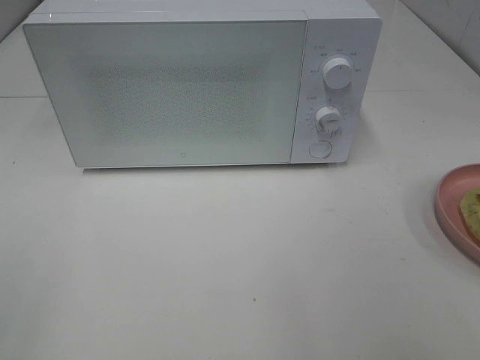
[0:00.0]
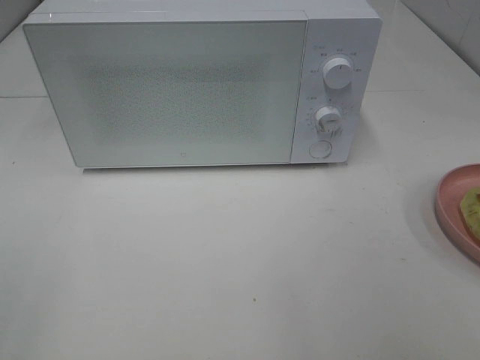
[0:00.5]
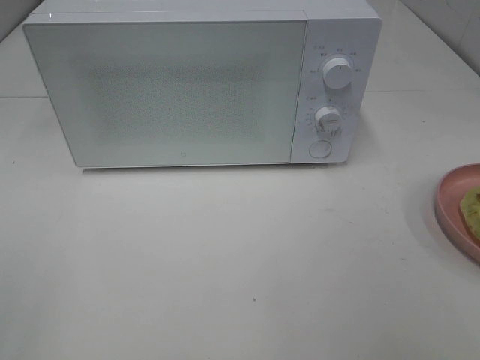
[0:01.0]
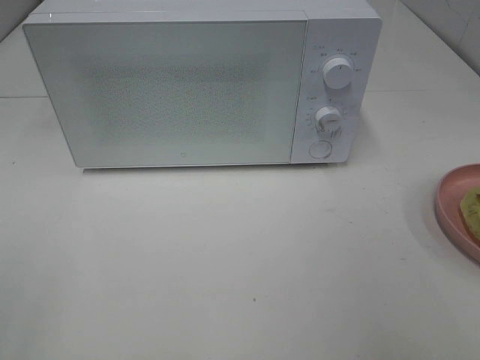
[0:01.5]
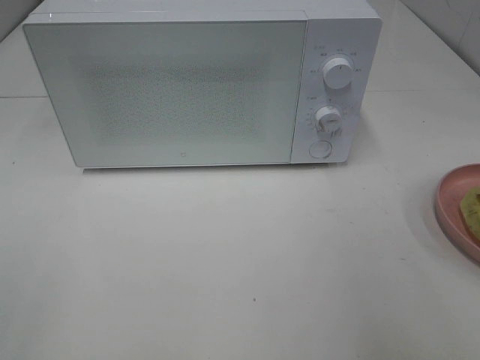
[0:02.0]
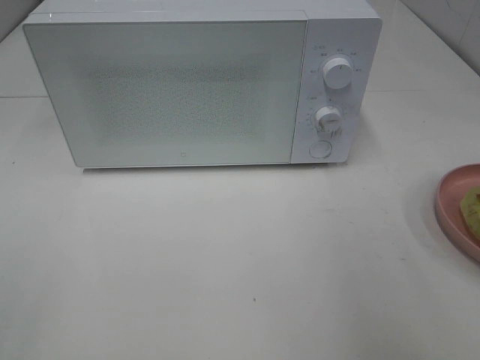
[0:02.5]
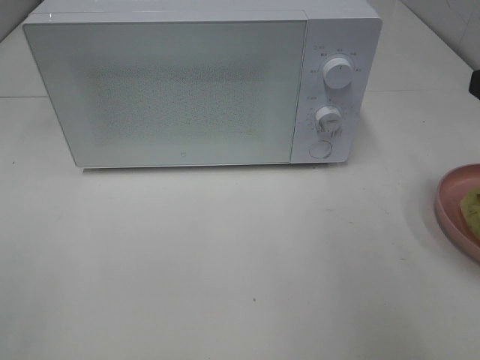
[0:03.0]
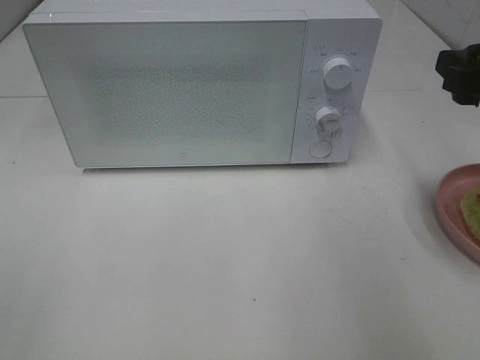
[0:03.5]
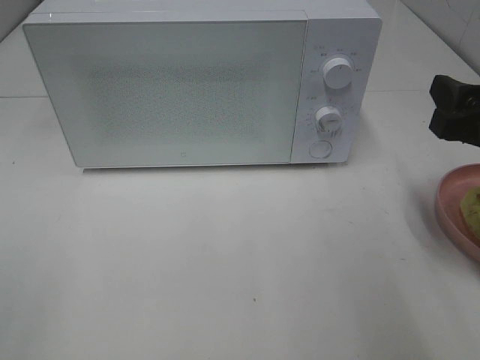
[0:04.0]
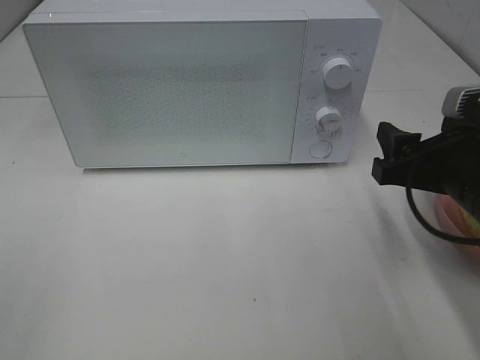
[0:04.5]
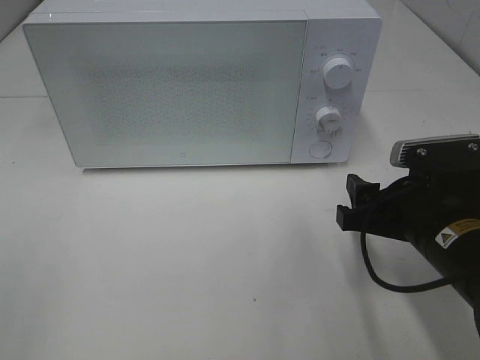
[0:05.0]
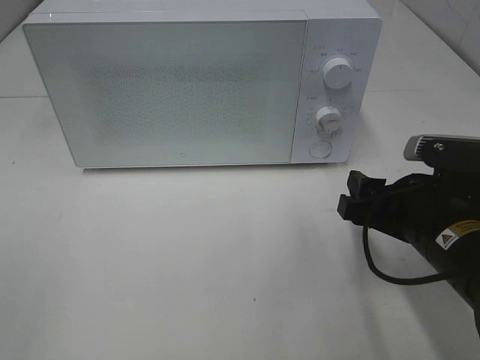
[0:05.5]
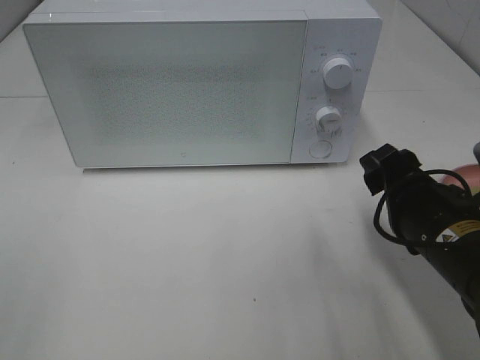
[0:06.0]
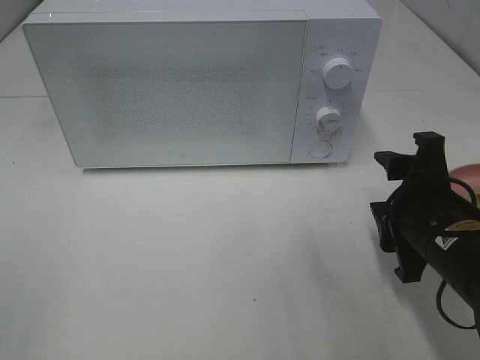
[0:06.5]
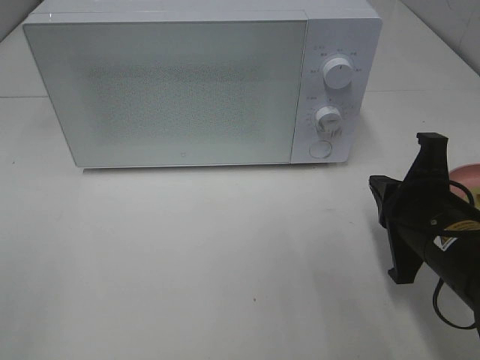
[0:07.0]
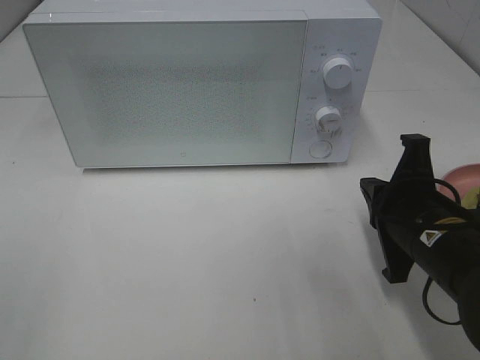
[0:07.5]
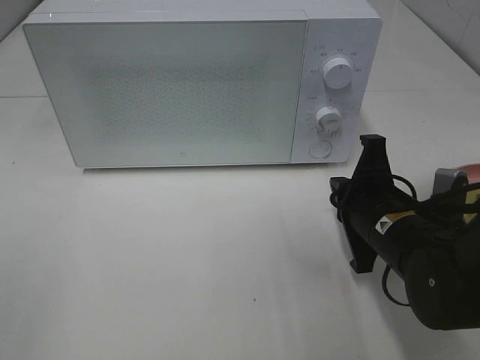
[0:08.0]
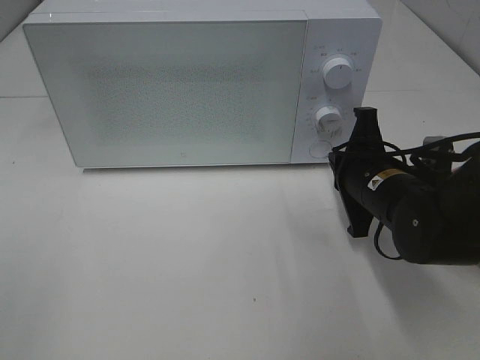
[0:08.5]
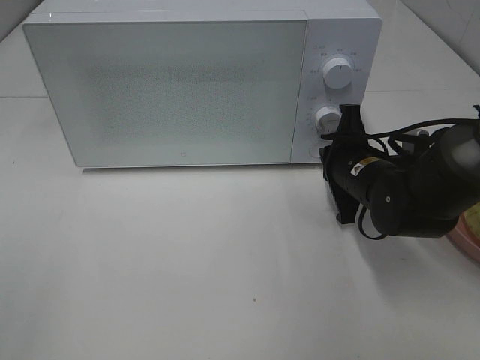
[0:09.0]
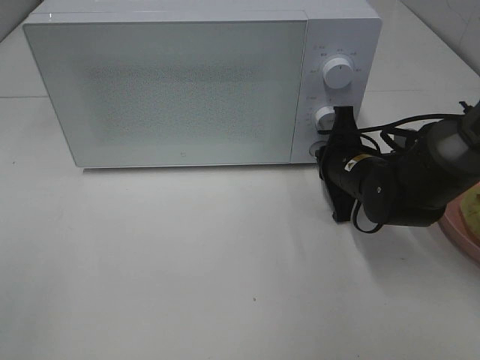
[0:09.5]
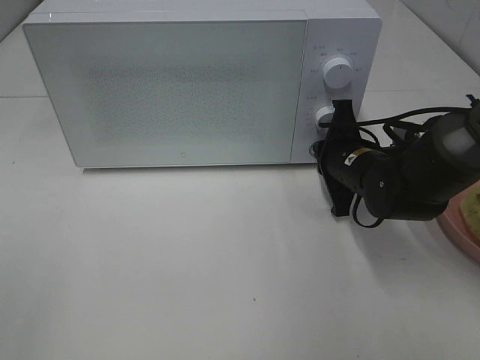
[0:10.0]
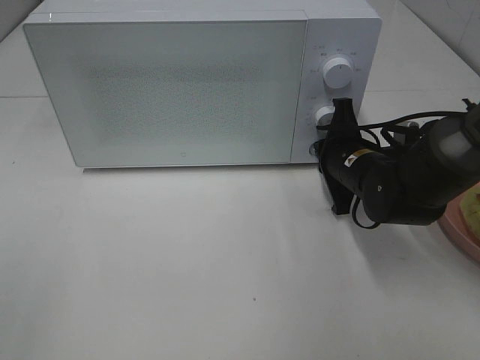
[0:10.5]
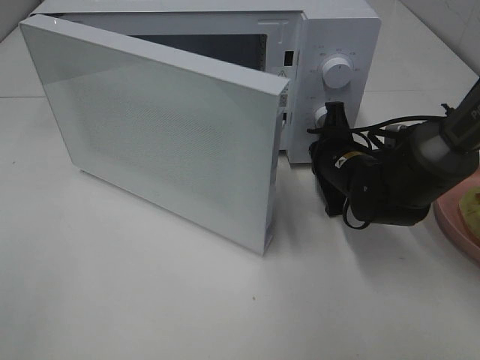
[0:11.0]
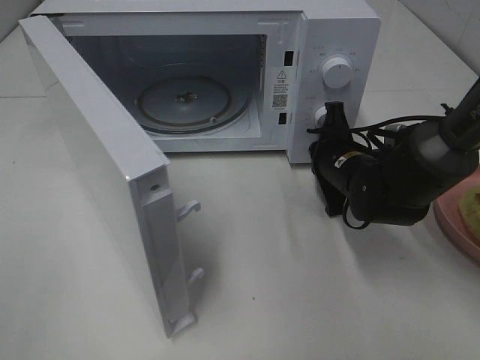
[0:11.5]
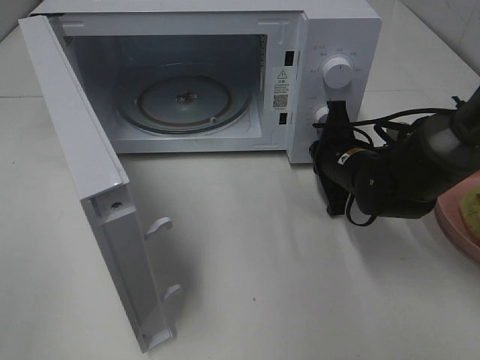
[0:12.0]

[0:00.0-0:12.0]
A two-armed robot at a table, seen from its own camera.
Task of the whole recording: Heat Sandwich.
0:02.0 to 0:04.0: The right gripper travels forward and downward by roughly 15 cm.
0:04.0 to 0:06.0: The right gripper moves downward and to the left, some 10 cm.
0:06.0 to 0:08.0: The right gripper shifts by roughly 5 cm, and closes up.
0:08.0 to 0:10.0: The right gripper heads forward, covering approximately 10 cm.

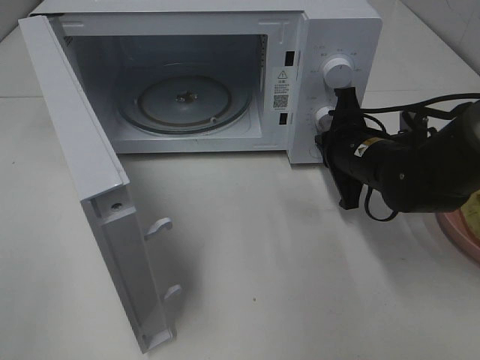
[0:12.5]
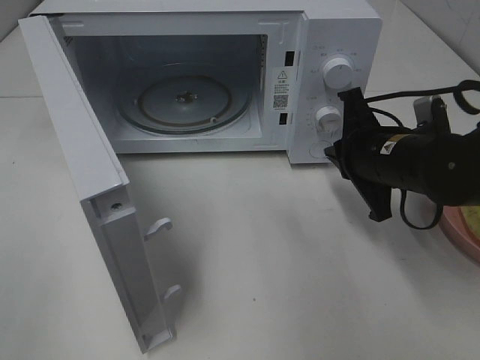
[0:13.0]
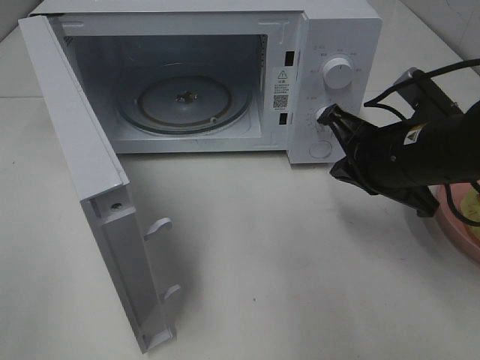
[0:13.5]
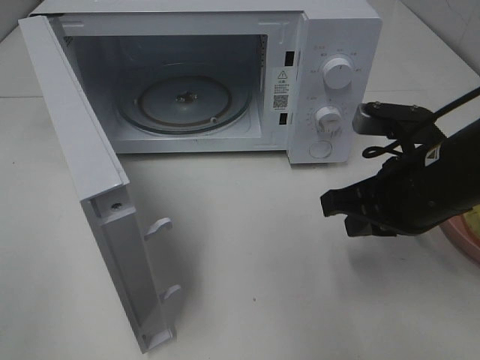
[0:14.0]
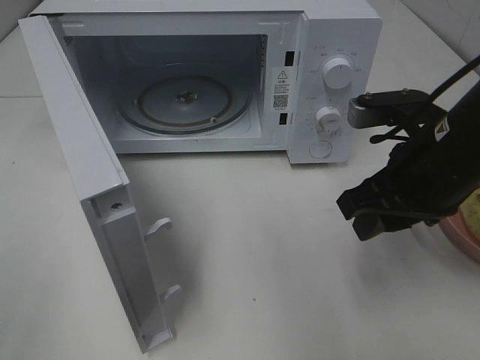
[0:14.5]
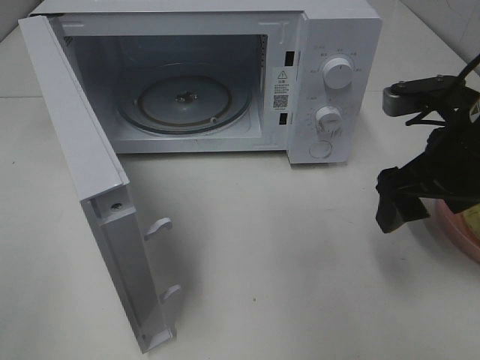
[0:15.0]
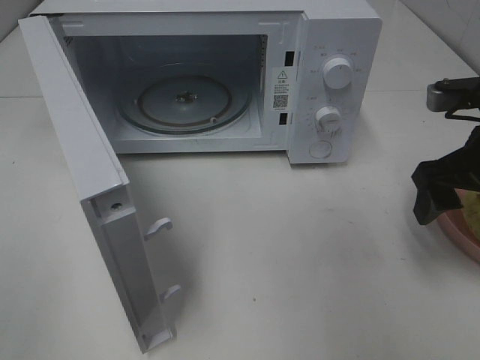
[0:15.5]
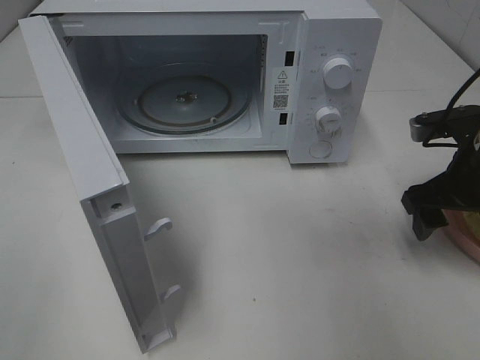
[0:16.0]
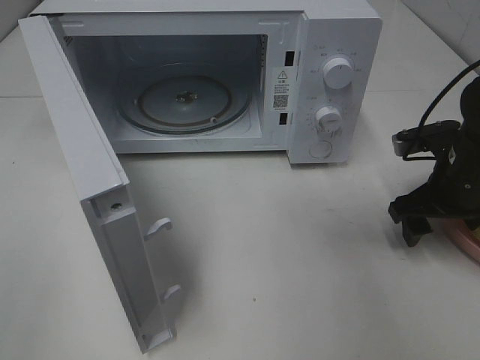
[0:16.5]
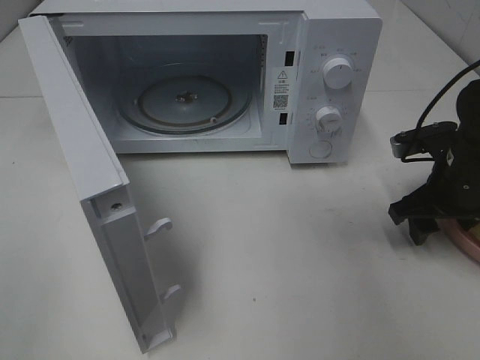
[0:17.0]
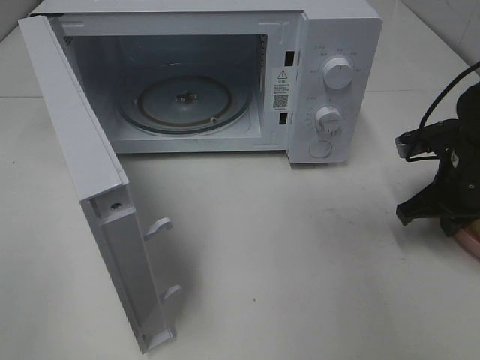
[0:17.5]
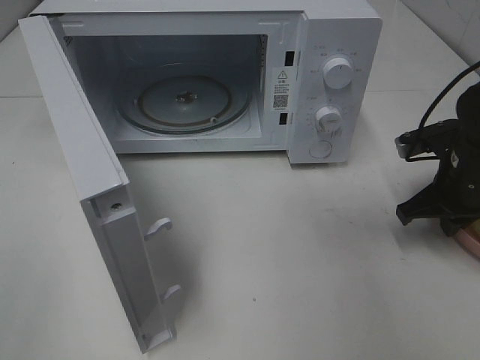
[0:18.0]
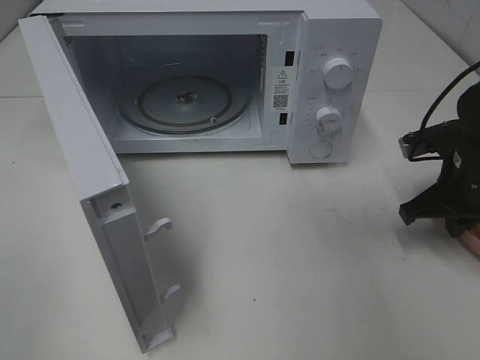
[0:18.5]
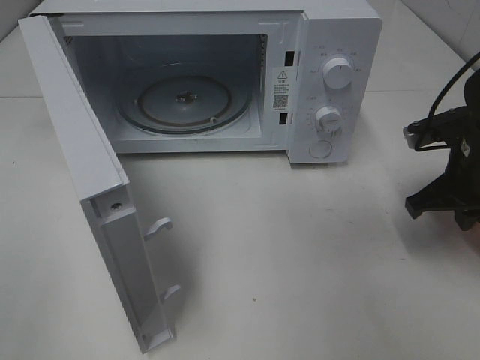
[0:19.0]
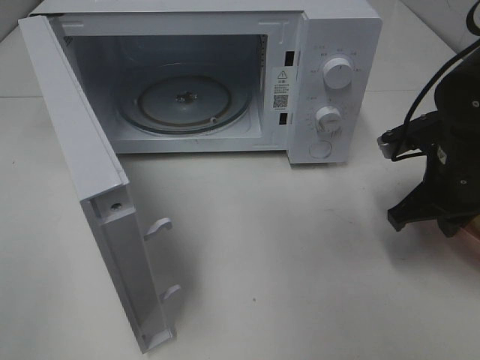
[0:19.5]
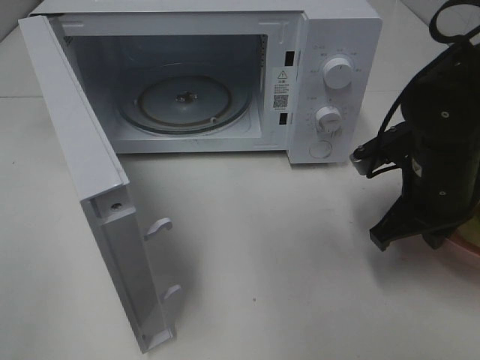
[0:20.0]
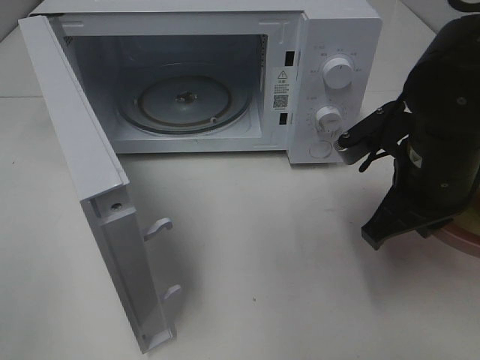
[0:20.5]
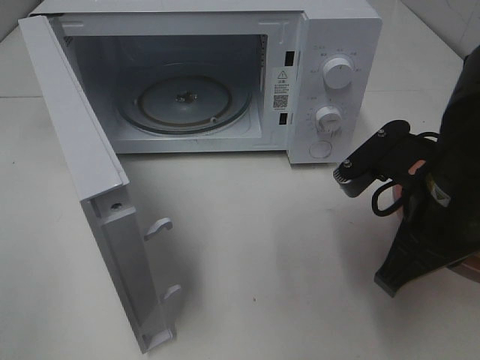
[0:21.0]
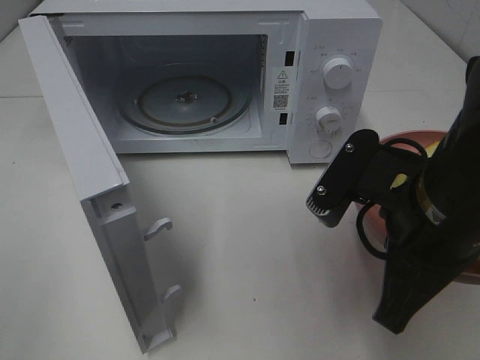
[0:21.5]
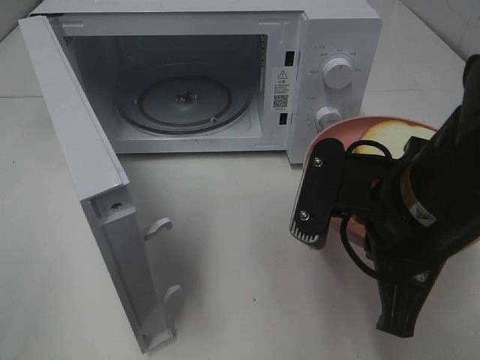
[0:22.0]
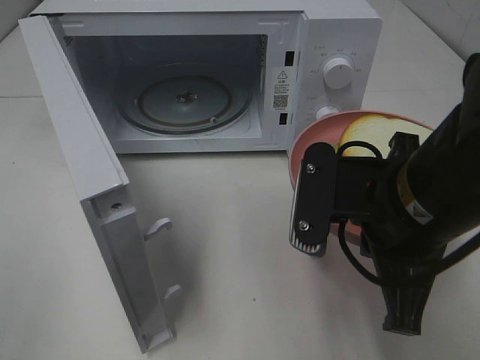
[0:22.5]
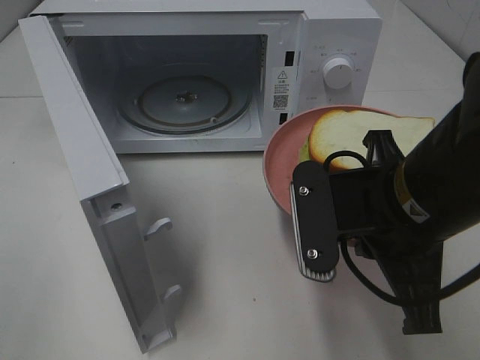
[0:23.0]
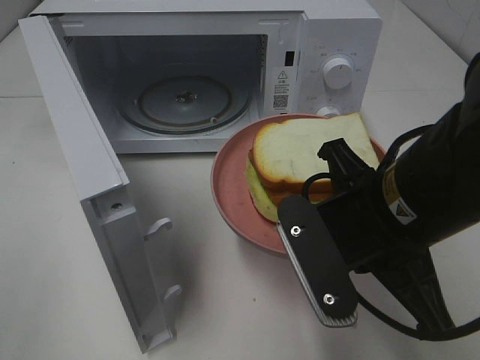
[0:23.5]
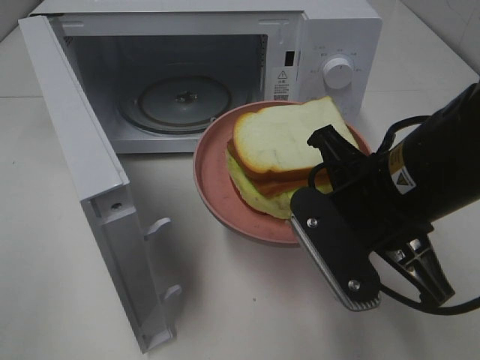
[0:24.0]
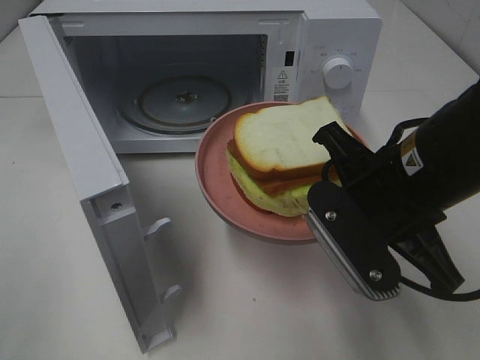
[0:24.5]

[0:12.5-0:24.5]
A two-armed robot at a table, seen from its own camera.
Task of the whole recording: Heat Sandwich.
Step, 0:13.0 to 0:17.5: Right hand: grab the plate with the sandwich.
0:12.5 to 0:14.5: The right gripper moves backward and upward, roughly 15 cm, and opens up.
0:14.5 to 0:16.5: The right gripper goes some 15 cm to the right, downward and forward, and opens.
0:16.5 to 0:18.5: The right gripper closes up.
0:18.5 to 0:20.5: The right gripper travels to the left, backward and upward by roughly 15 cm.
0:20.5 to 0:22.5: The right gripper goes approximately 5 cm backward.

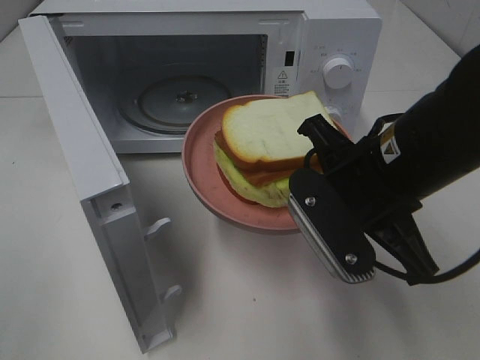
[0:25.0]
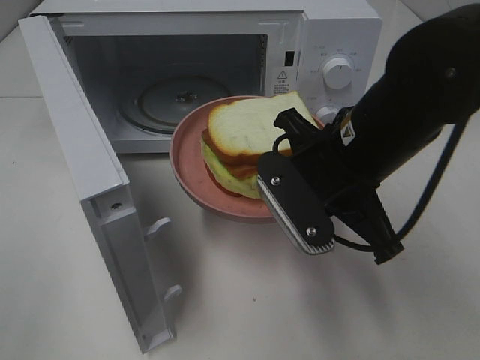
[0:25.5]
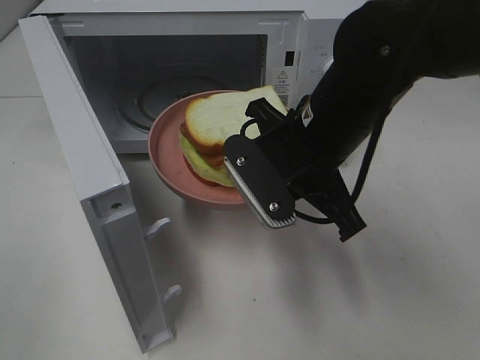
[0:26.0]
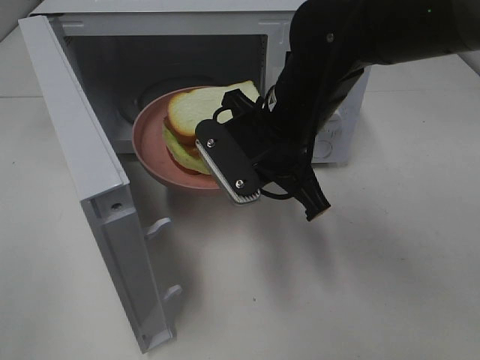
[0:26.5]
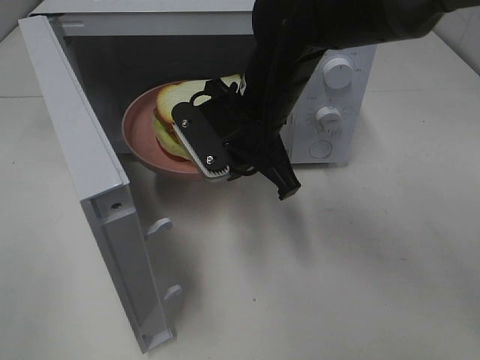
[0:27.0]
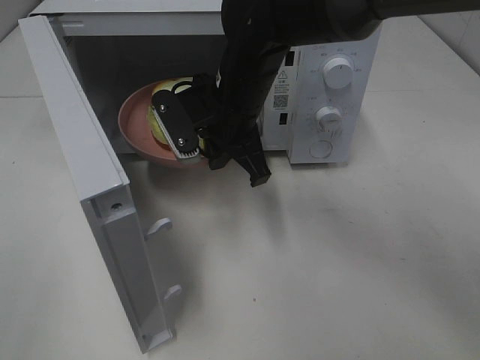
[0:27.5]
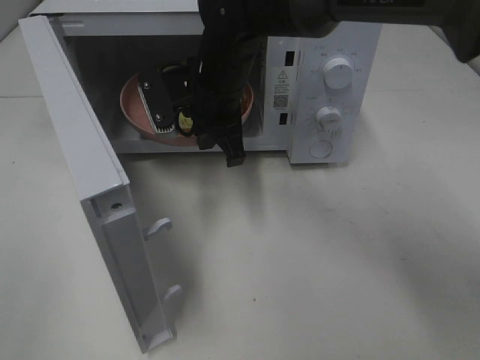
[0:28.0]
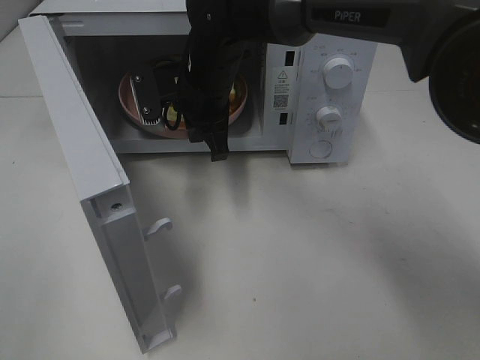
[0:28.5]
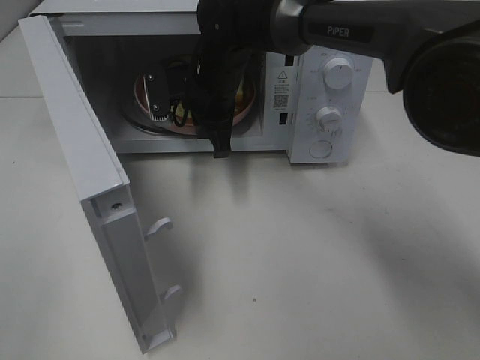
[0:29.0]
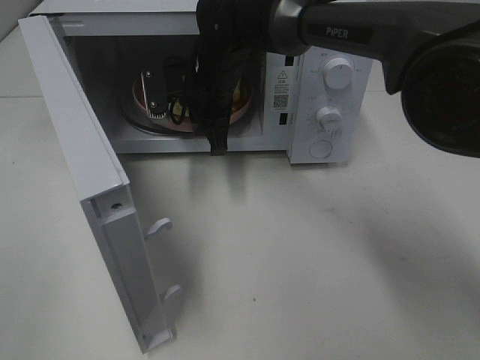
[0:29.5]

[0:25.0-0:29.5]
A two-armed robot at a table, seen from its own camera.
Task of the whole recording: Heat Sandwich.
0:25.0 to 0:27.0: The right gripper shifts approximately 15 cm forward and to the left.
0:27.0 to 0:29.5: The right gripper moves forward and to the left, approximately 10 cm.
